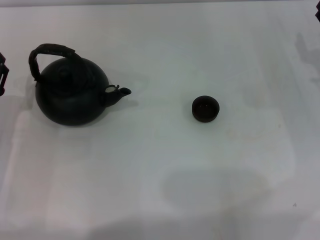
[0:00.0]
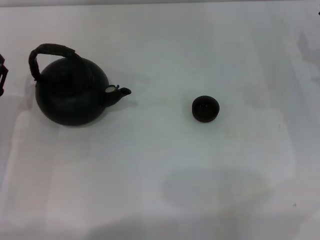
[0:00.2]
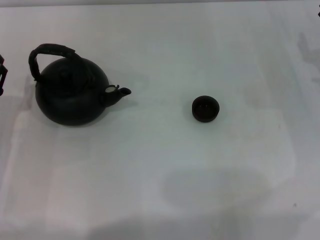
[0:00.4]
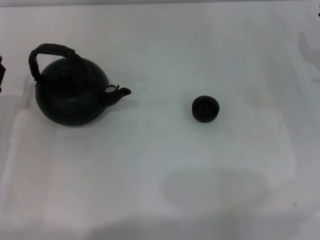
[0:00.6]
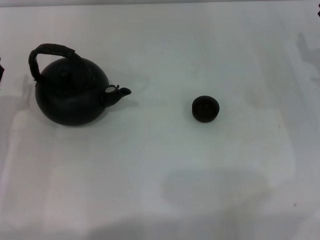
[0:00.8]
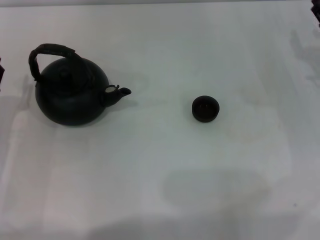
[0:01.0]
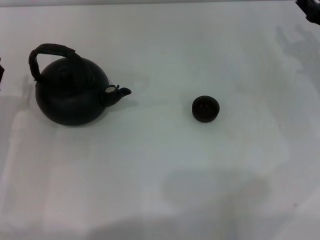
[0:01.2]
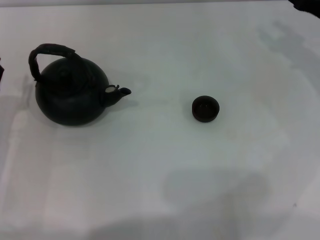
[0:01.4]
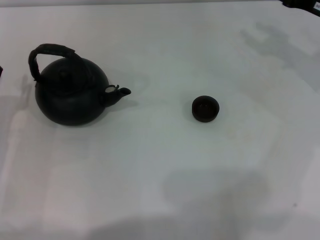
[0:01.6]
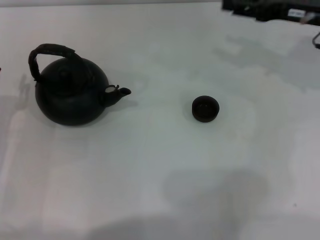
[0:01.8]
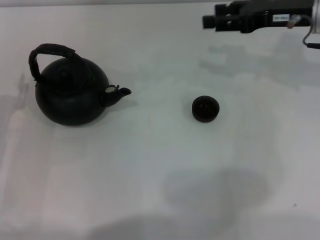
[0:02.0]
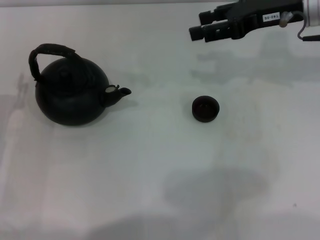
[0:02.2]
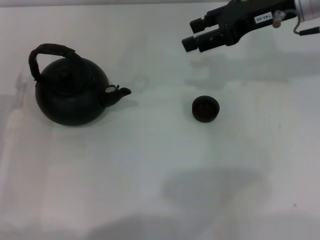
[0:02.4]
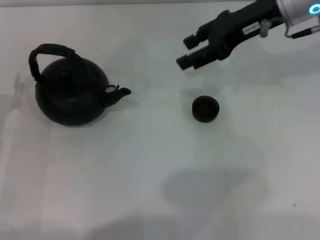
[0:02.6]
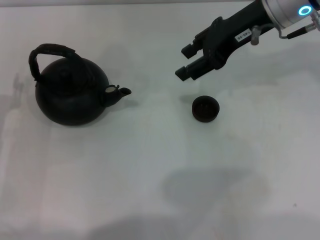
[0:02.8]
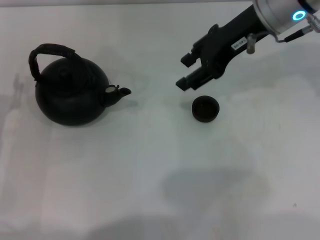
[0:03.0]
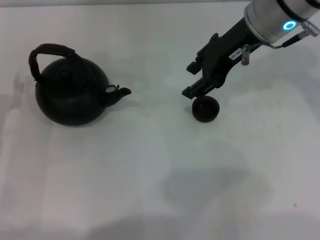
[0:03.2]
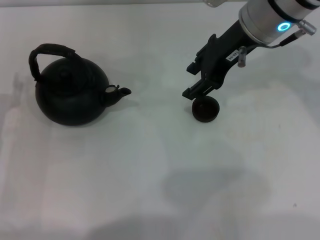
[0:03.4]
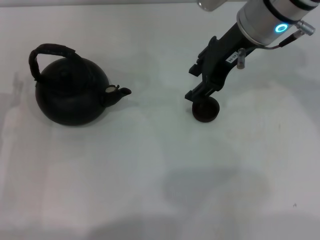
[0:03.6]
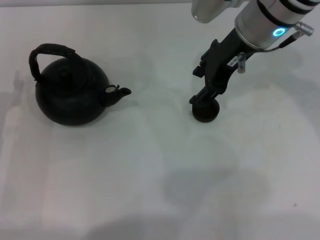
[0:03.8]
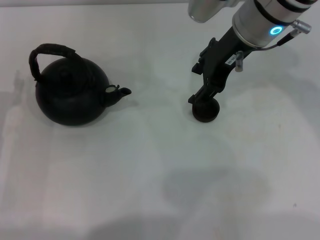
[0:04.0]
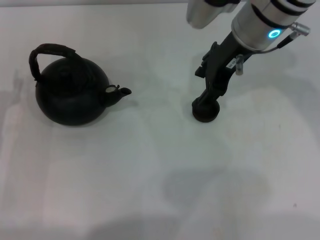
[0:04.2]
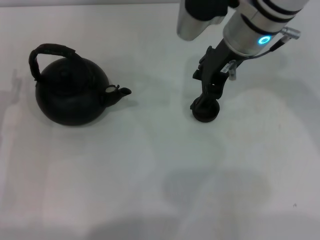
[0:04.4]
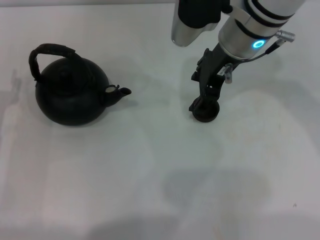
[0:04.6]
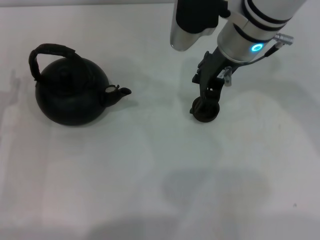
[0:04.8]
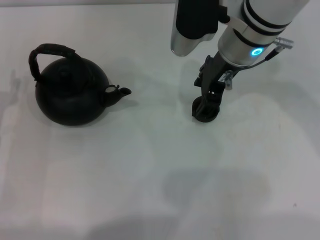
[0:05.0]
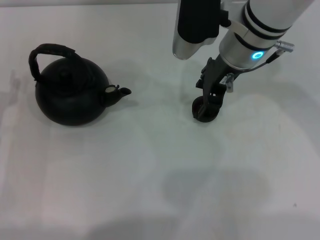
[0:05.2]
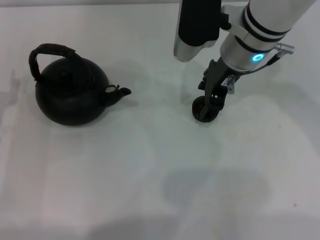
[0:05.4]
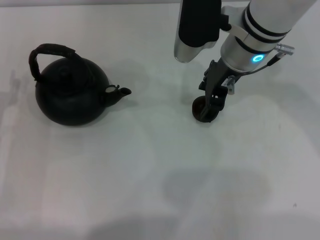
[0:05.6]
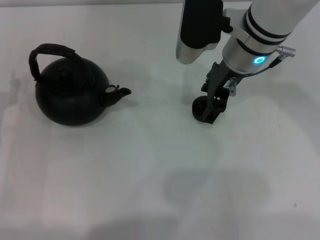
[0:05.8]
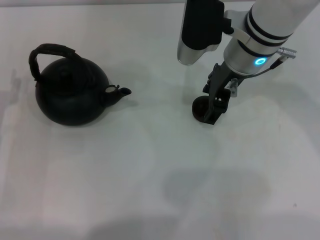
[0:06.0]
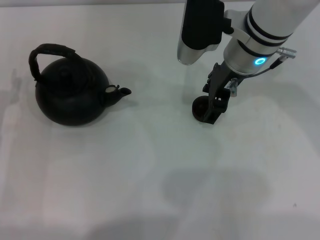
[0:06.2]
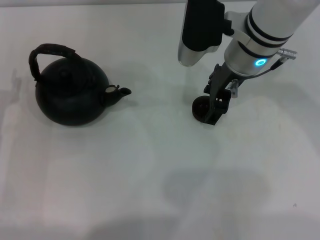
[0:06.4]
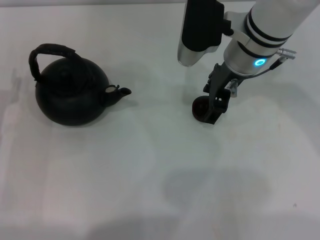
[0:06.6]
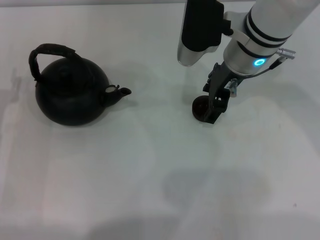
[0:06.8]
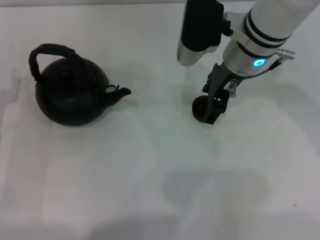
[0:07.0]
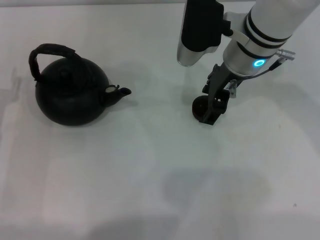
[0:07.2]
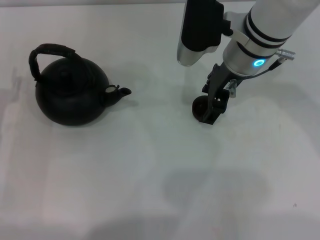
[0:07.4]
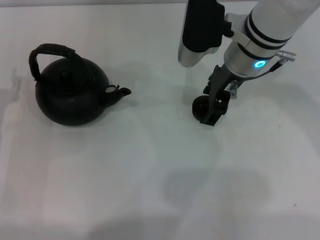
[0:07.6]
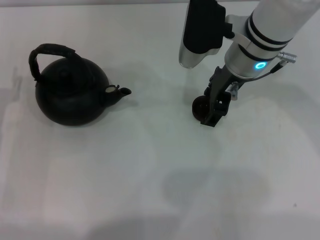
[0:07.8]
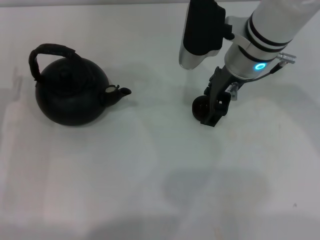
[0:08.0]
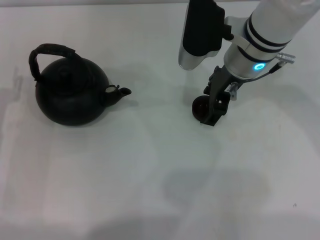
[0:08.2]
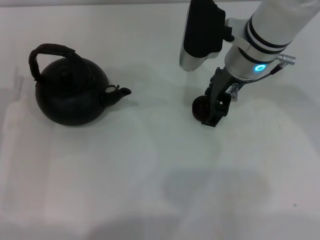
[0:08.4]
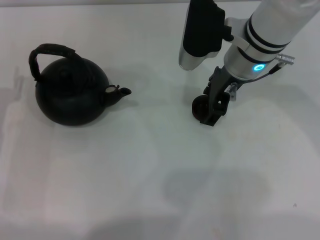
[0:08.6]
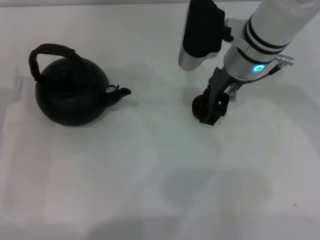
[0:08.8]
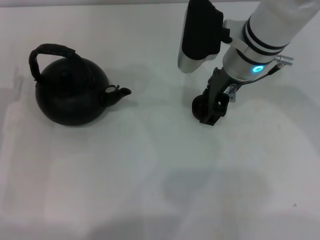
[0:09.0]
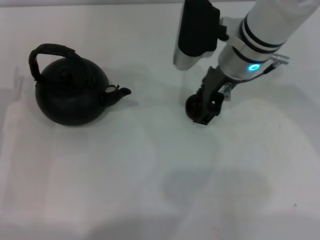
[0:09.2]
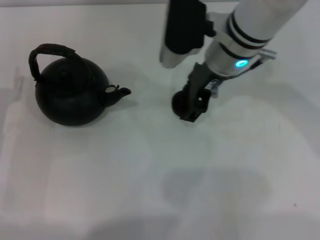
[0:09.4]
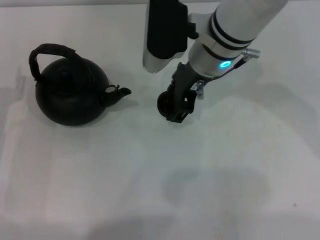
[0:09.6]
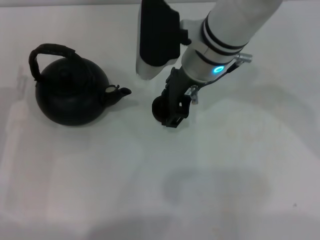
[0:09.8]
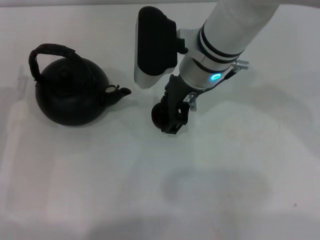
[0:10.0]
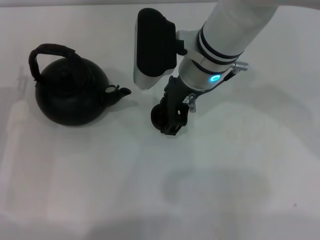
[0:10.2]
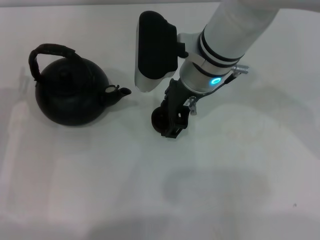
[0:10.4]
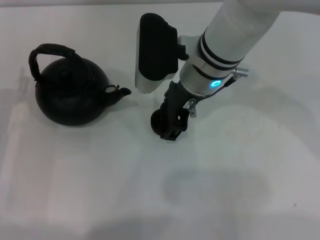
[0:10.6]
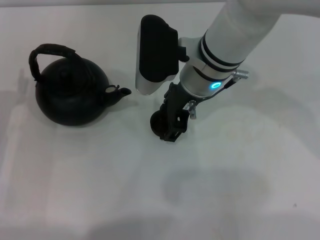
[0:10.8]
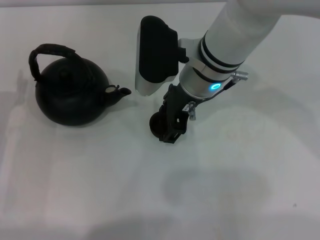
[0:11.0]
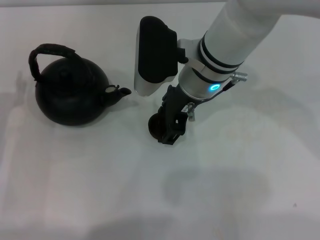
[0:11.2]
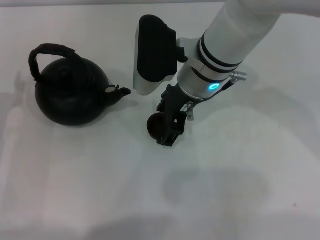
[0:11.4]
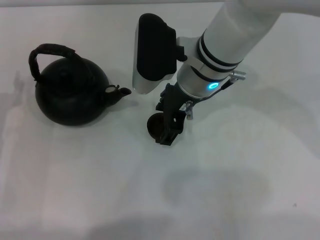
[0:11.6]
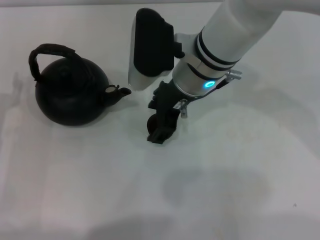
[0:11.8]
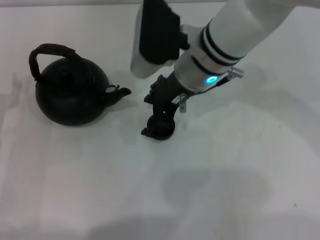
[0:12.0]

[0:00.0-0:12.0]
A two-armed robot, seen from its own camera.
Task of the whole recording: Grasp the handle of the teapot with one hand and pour tea into the teacup.
Step, 0:00.0 to 0:09.8: Pick up the teacup with the right gripper.
0:01.6 to 0:03.0: The right gripper is displaced to the left and upward by some 20 cm.
0:03.0 to 0:04.4: The right gripper moves roughly 5 cm, and opens its fingers.
0:04.4 to 0:06.0: The grippers move only a little.
0:06.0 to 0:07.6: Both grippers stay about where they are.
0:07.6 to 0:09.0: The right gripper closes its fingers.
0:09.0 to 0:10.4: The right gripper goes roughly 5 cm to the left.
0:10.4 to 0:12.0: The right gripper opens its fingers.

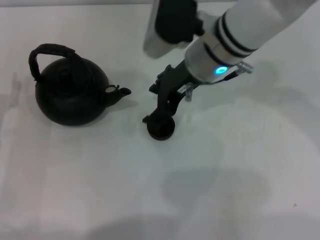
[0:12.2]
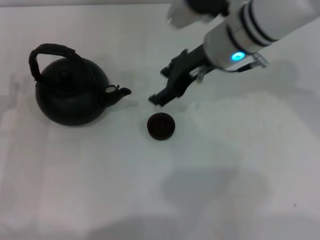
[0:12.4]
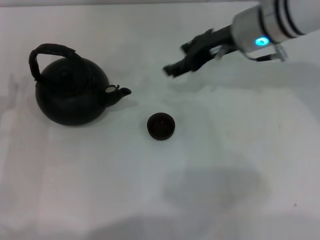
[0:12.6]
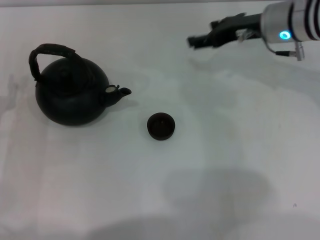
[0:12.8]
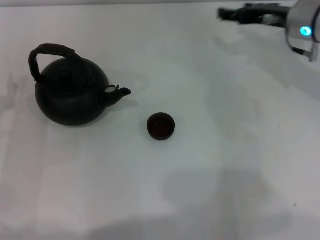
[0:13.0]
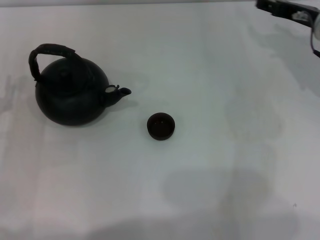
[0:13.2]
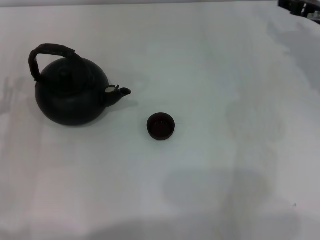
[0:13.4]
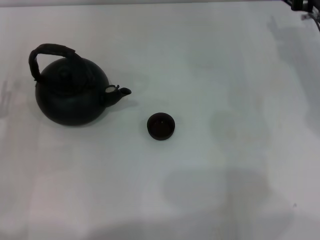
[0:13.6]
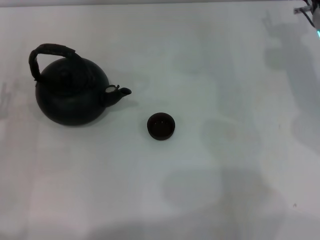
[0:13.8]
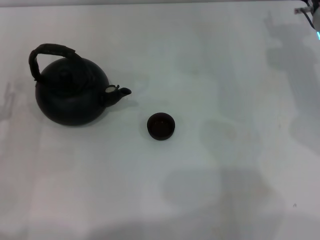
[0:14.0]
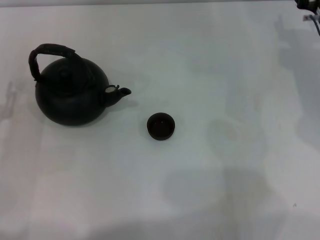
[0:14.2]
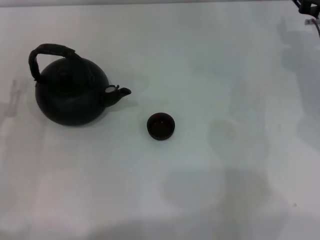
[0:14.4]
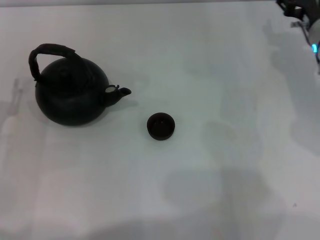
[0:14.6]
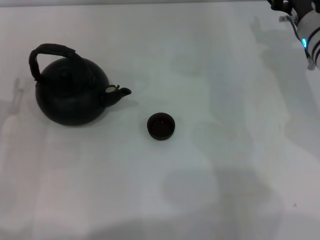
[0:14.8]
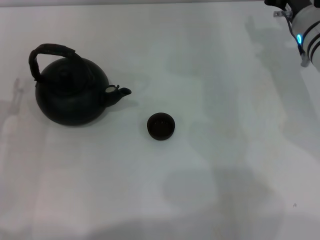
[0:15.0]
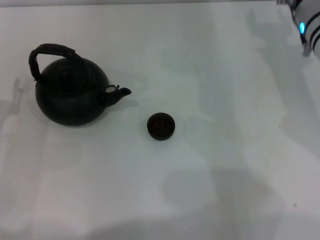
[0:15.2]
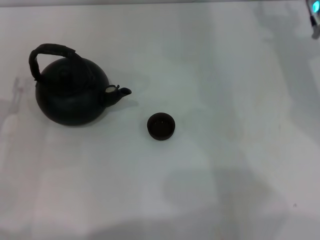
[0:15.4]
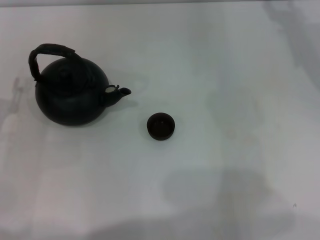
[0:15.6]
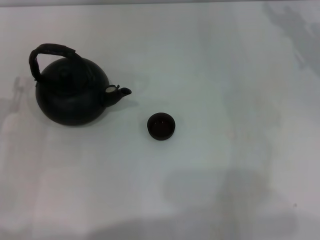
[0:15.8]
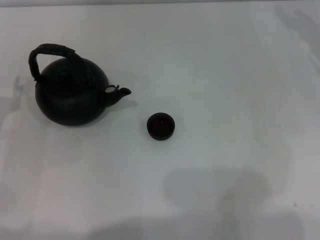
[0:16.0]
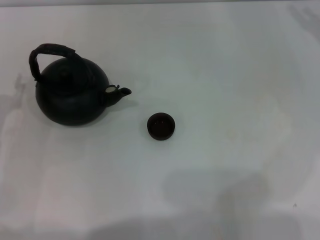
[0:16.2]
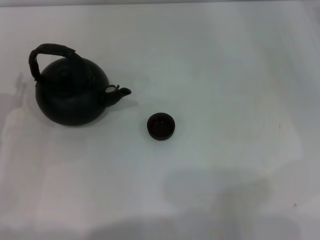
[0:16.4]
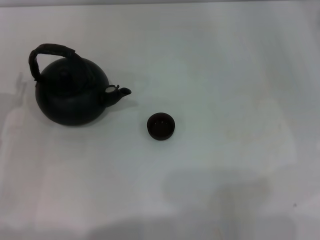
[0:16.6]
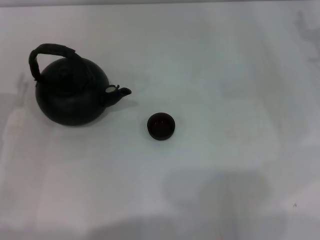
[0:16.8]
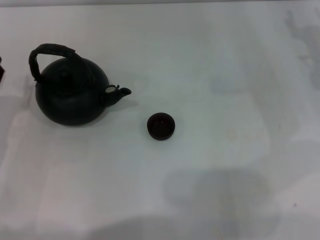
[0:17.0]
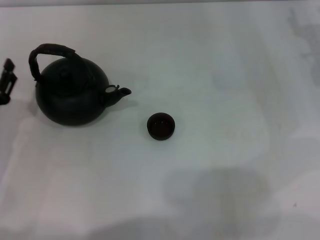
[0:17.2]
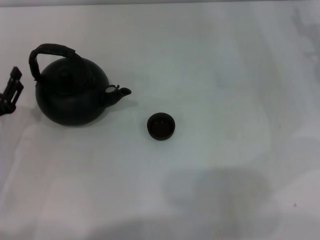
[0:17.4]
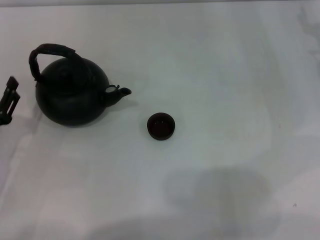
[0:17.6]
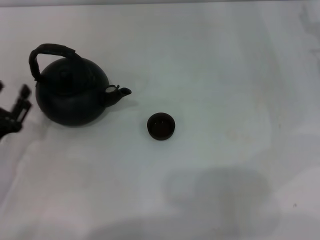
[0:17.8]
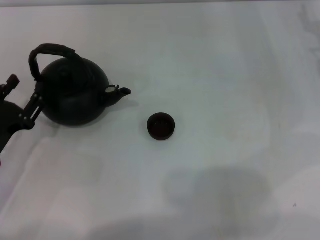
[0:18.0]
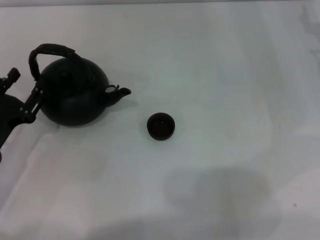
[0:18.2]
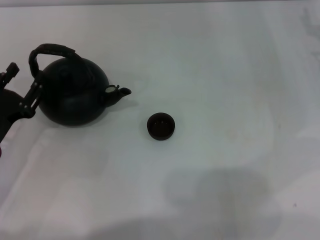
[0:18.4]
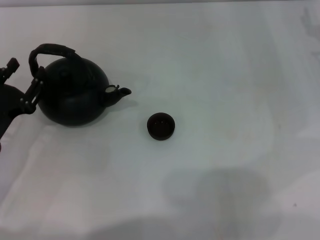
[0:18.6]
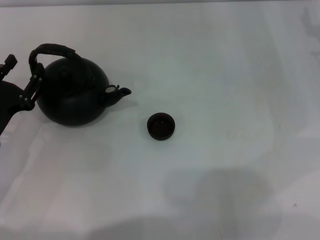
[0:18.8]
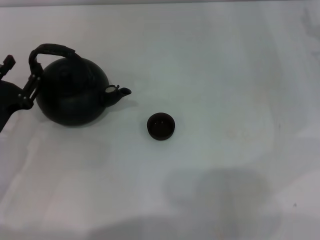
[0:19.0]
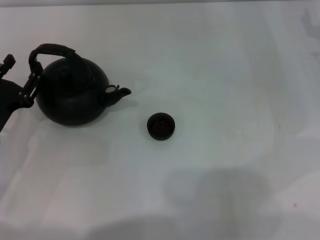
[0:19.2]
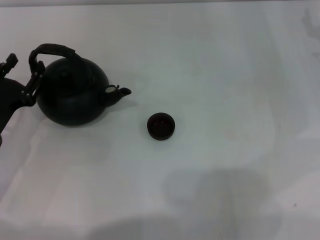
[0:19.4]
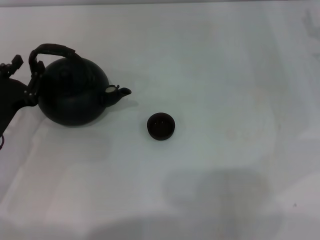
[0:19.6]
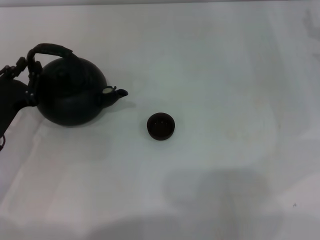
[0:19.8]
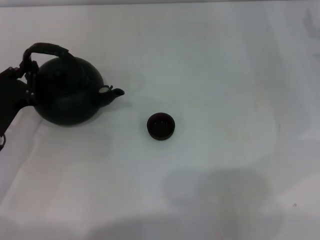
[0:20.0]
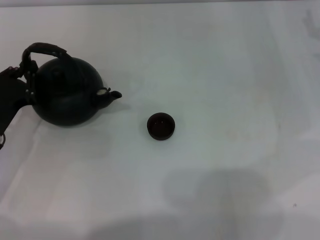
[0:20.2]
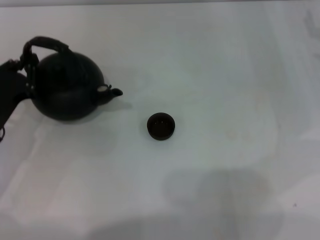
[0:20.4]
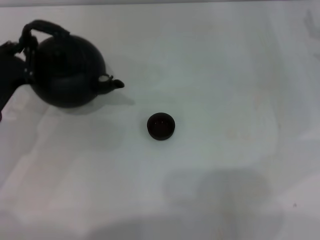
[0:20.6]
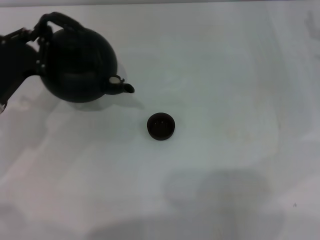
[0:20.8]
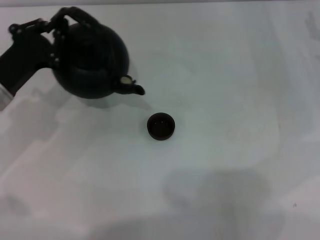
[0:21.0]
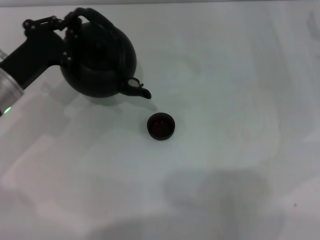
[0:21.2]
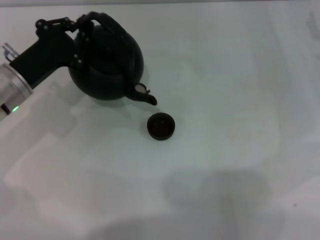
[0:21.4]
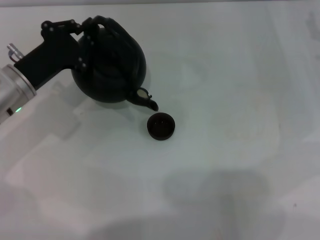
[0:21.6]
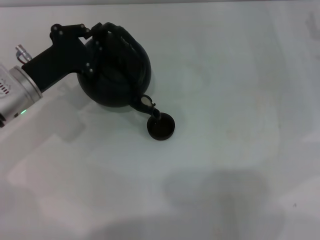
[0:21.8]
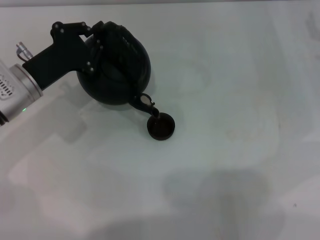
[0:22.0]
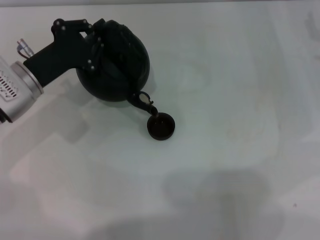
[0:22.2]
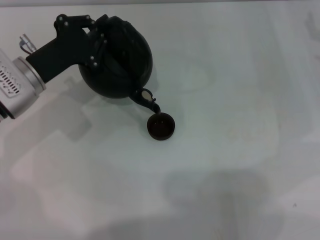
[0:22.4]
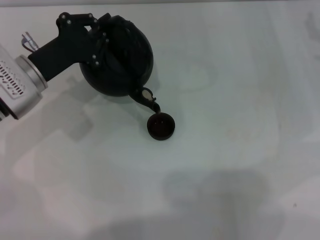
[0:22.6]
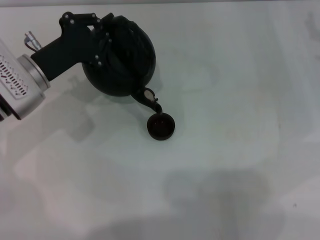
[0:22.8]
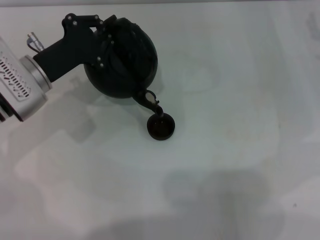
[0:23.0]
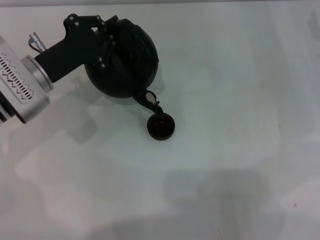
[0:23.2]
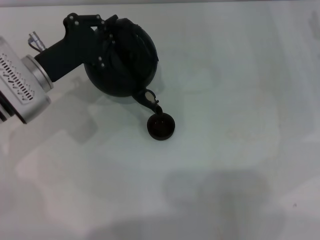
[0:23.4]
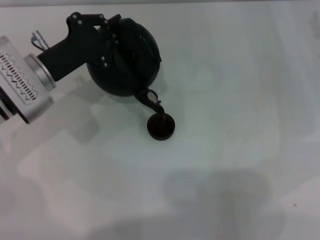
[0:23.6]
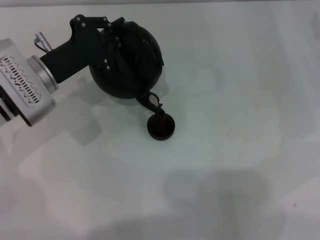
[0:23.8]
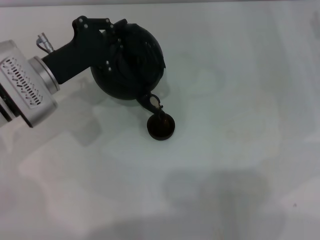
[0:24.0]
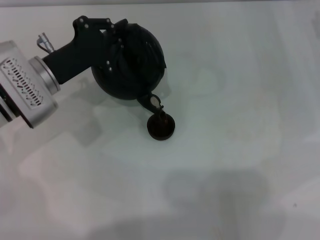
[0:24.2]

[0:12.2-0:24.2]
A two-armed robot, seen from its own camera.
Task of the whole recording: Grasp the handle of the teapot with one hand and pour tea into the teacup.
Step, 0:12.4 to 0:20.6: Pick up the teapot with the left gripper.
0:12.2 to 0:13.8: The right gripper is displaced to the right by about 15 cm.
0:13.8 to 0:15.2: The grippers move only a little.
0:15.2 to 0:16.6: The right gripper shifts approximately 15 cm to the right.
0:18.2 to 0:19.8: The grippers stay close to where they were, moving slightly.
0:19.8 to 0:21.2: The left gripper shifts roughly 5 cm forward, and closes up.
0:22.6 to 0:24.2: The grippers make only small movements.
